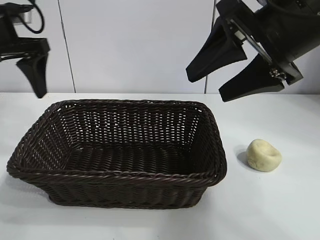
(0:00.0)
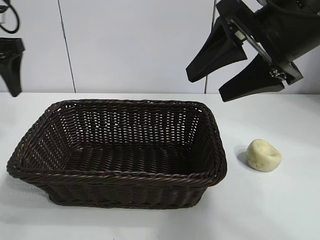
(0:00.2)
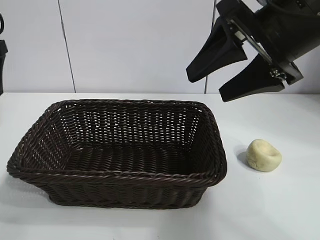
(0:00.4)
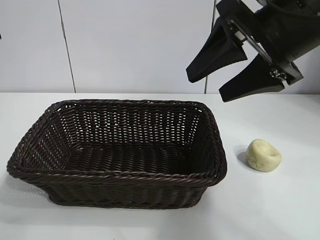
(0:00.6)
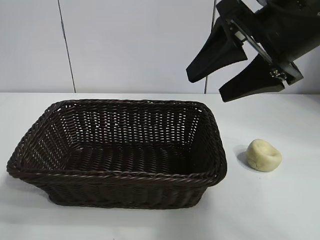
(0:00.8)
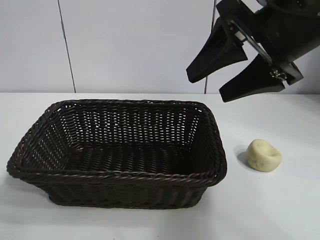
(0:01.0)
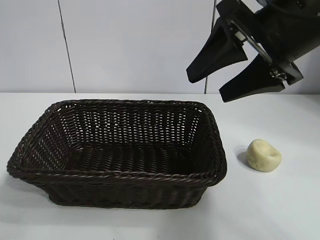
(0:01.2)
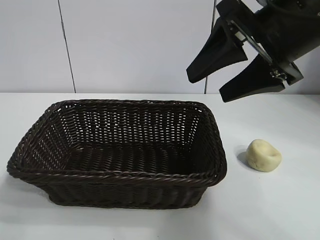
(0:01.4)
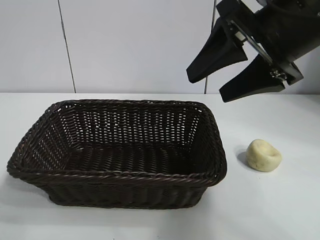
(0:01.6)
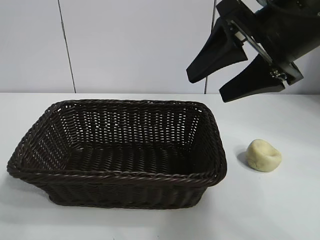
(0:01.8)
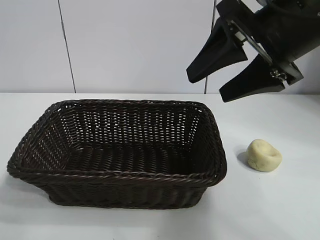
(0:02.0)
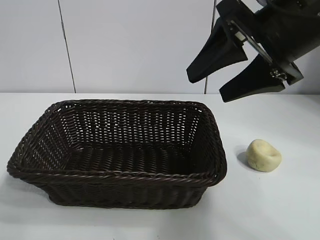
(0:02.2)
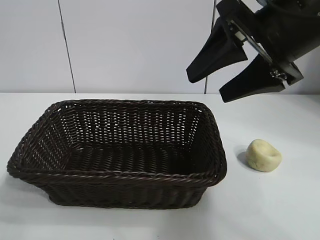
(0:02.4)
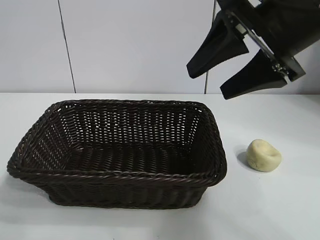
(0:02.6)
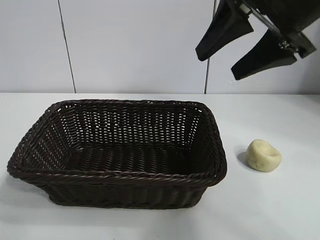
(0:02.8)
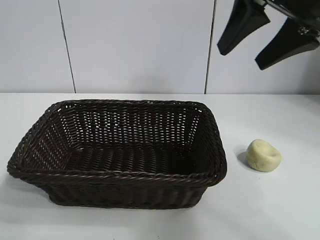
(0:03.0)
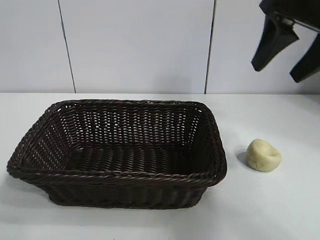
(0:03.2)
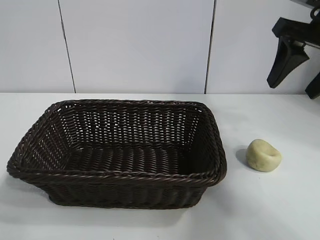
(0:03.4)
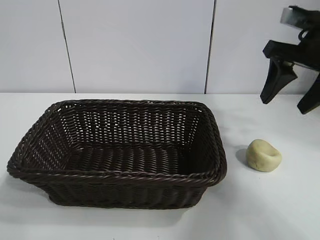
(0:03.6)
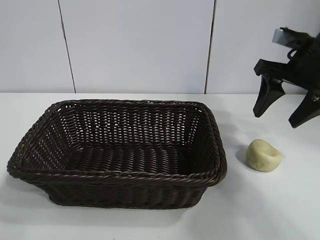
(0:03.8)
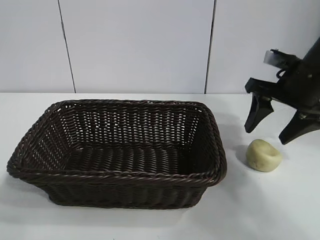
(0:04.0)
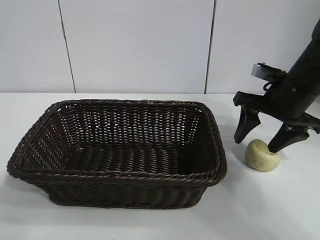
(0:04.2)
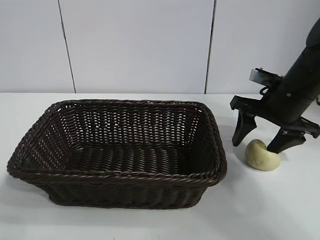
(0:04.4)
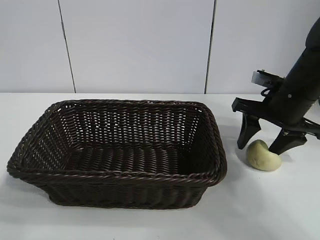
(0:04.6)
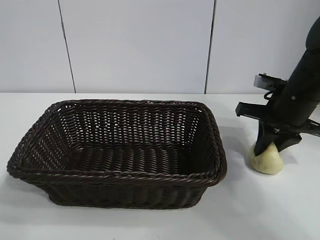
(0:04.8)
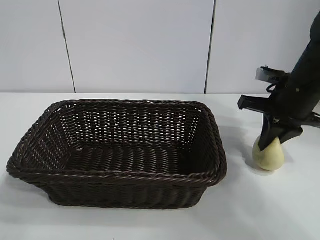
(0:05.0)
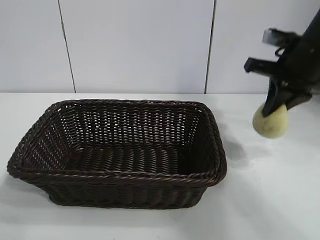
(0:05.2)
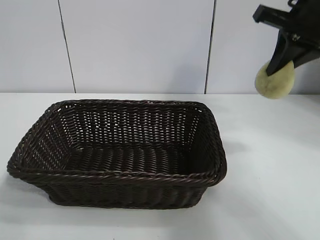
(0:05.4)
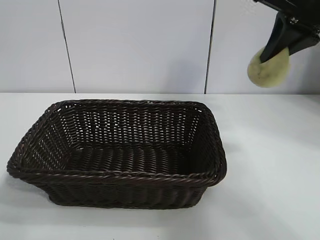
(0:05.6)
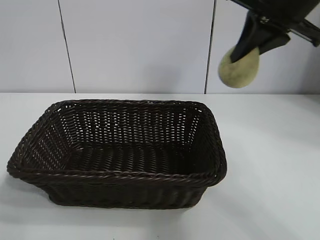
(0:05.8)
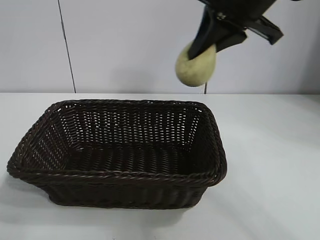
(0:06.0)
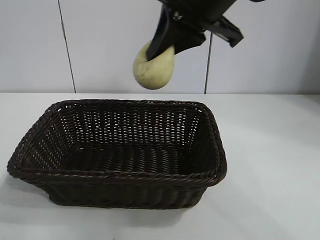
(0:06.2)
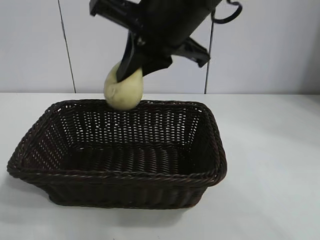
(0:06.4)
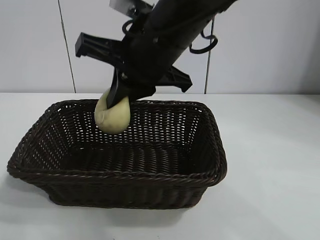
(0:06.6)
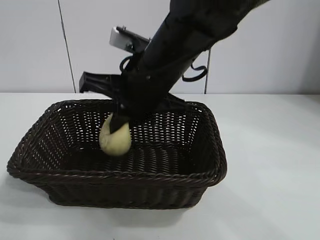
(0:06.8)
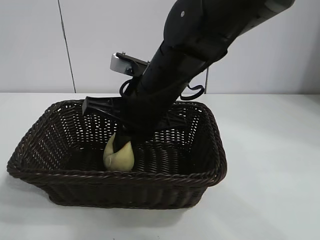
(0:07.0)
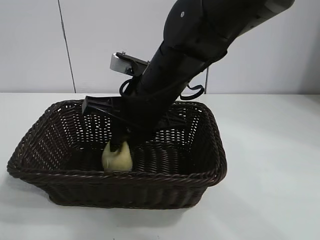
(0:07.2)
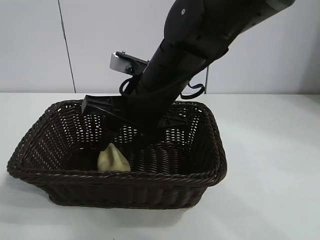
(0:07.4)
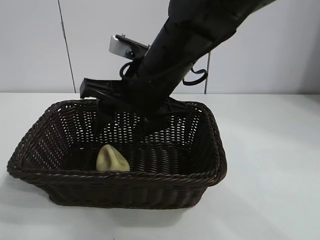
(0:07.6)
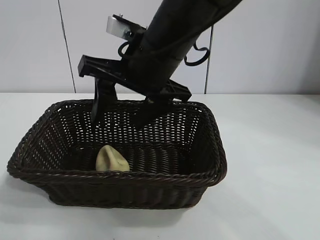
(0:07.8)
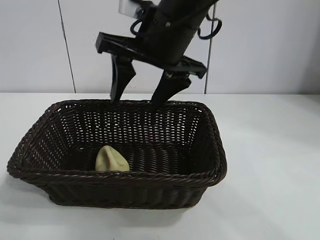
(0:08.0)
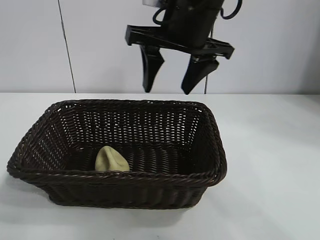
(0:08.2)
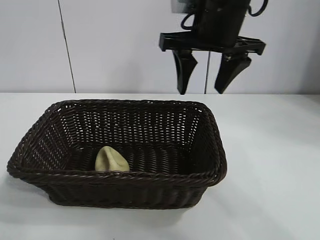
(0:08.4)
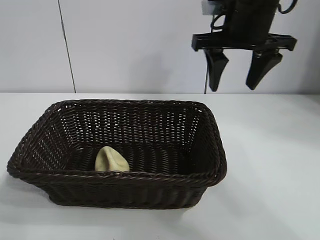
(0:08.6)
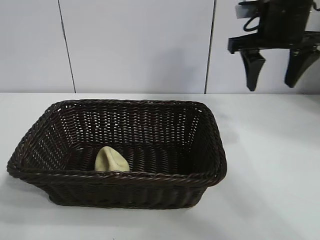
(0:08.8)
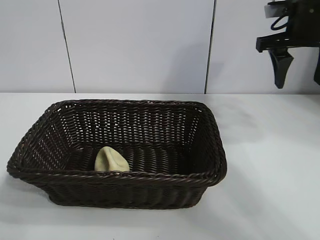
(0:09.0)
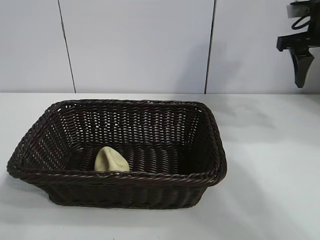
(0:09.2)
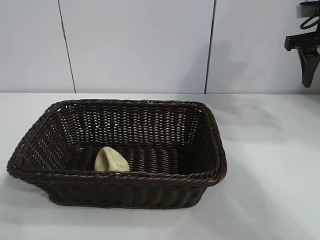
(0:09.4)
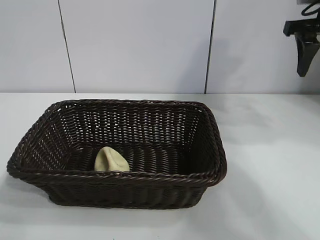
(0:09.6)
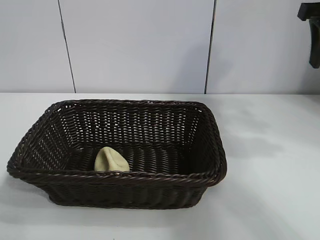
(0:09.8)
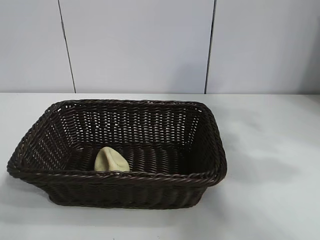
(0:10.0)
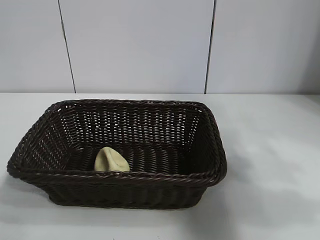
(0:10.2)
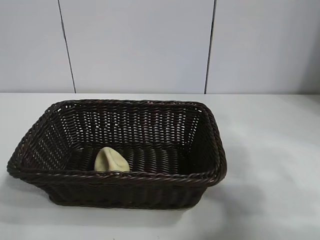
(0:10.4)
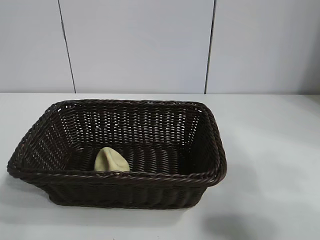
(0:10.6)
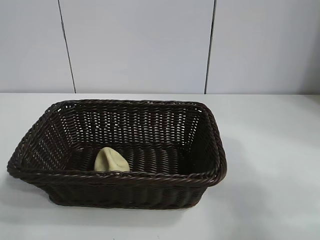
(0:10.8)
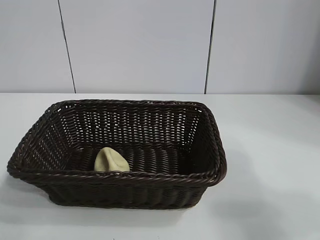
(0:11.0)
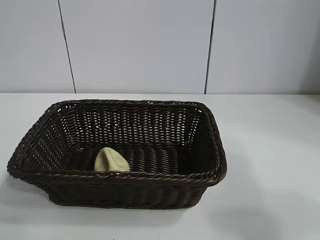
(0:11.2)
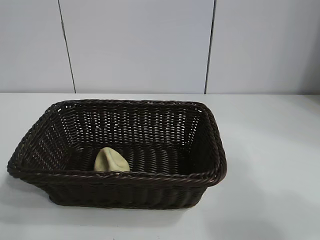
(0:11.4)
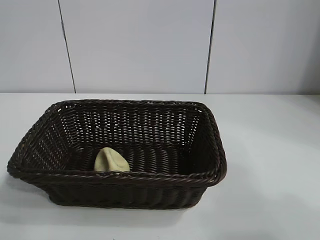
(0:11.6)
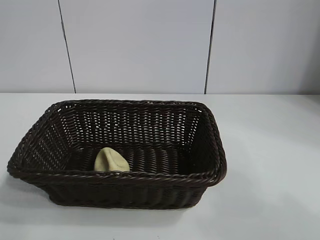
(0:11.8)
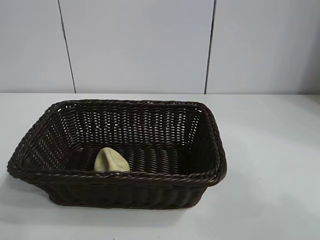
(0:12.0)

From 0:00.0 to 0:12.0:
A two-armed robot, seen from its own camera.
Task of the whole recording: pick up the egg yolk pastry and put it into the basket.
Step, from 0:00.0 to 0:04.8: Grasp egg yolk pastry with right gripper.
Step, from 0:05.0 to 0:07.6: Place the egg yolk pastry in the basket with right gripper.
